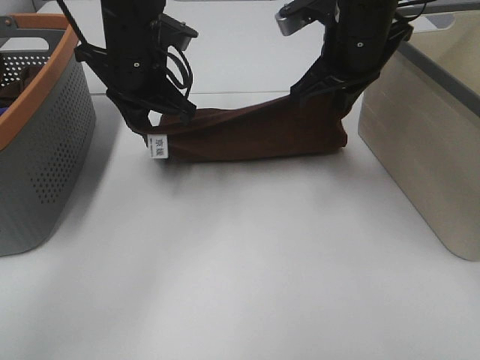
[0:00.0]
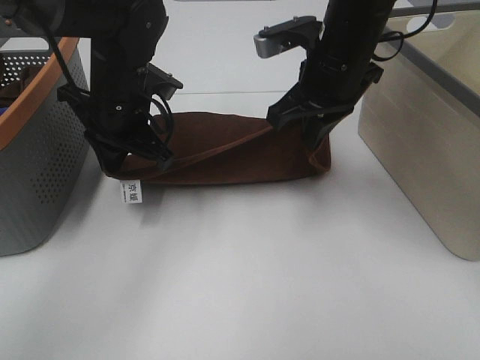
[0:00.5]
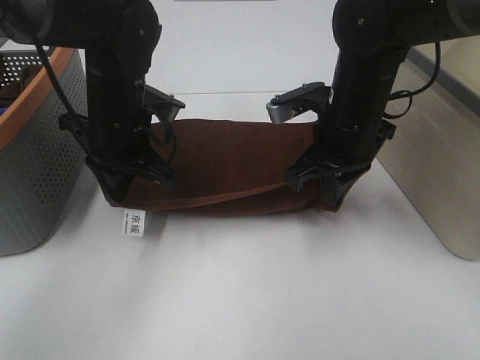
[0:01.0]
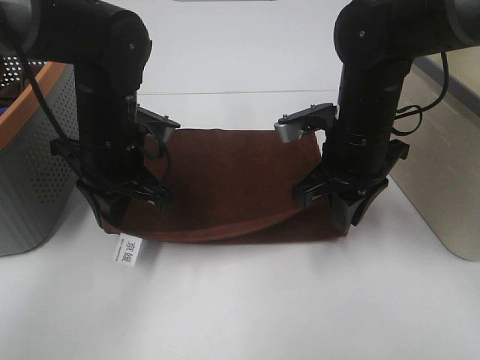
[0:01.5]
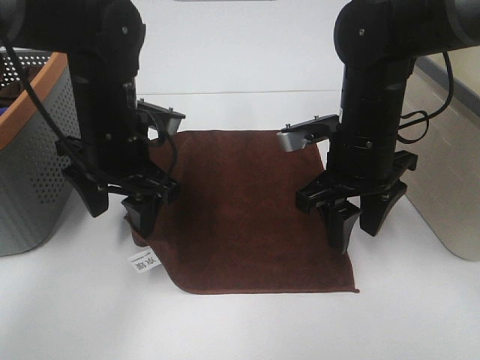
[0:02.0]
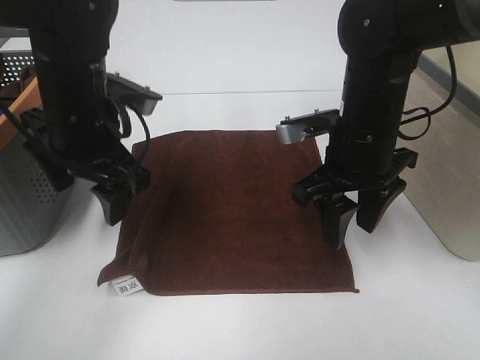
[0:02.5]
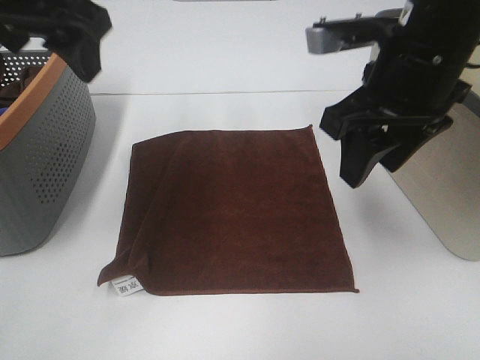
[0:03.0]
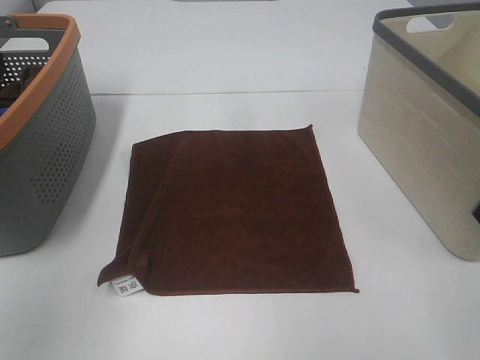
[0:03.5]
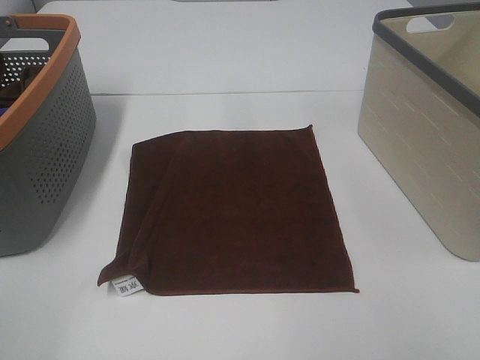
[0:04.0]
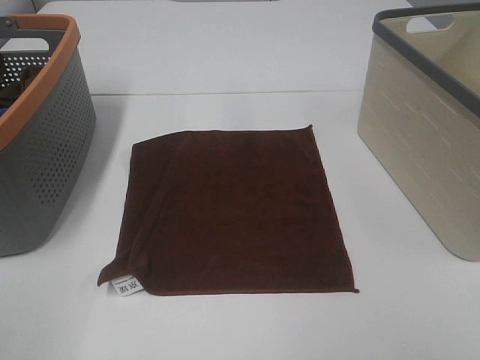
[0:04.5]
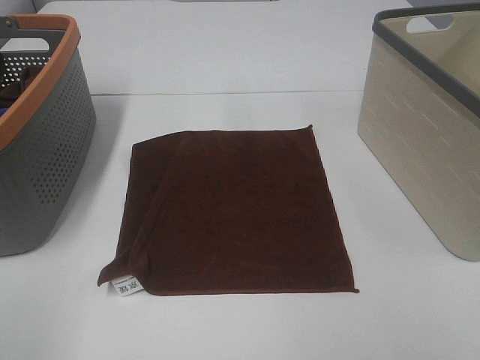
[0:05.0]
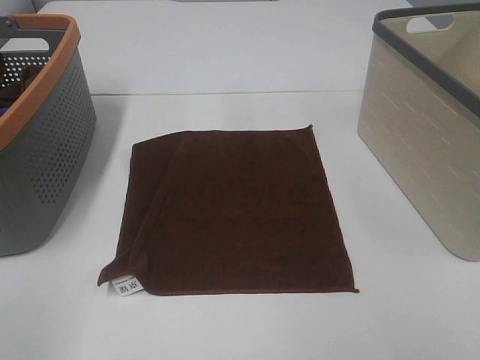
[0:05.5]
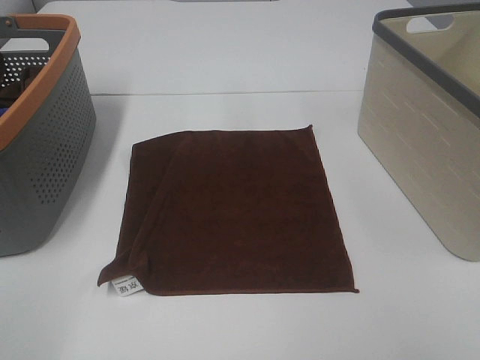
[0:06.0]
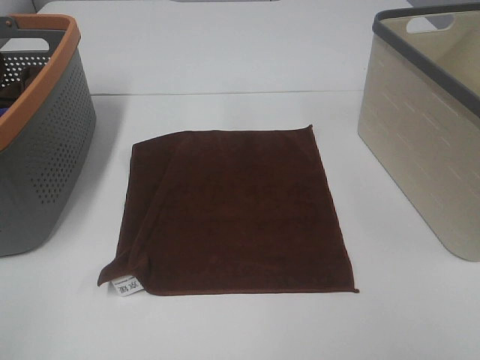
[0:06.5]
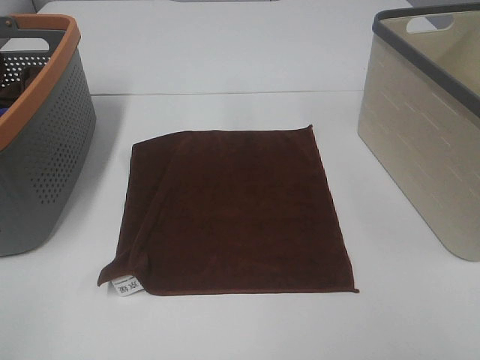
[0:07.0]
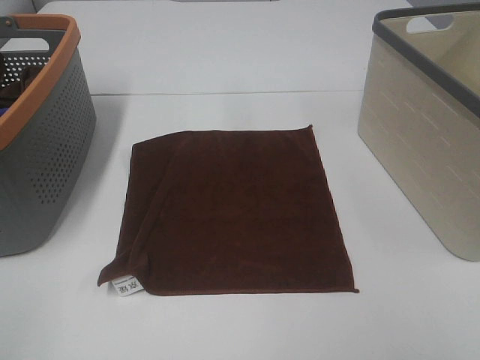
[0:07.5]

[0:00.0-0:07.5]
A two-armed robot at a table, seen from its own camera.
Task of the whole recording: Remove the towel and place it.
0:00.0 to 0:02.0: The right gripper goes roughly 10 cm downward and backward, and opens its fingers, while the left gripper travels backward by roughly 10 cm, and opens its fingers.
0:02.0 to 0:04.0: The right gripper travels backward, to the right and upward by some 35 cm. Meanwhile the left gripper goes some 35 cm backward, to the left and upward.
